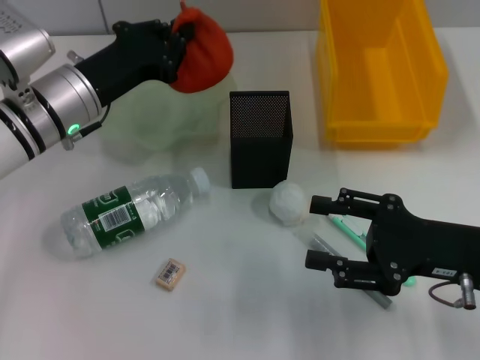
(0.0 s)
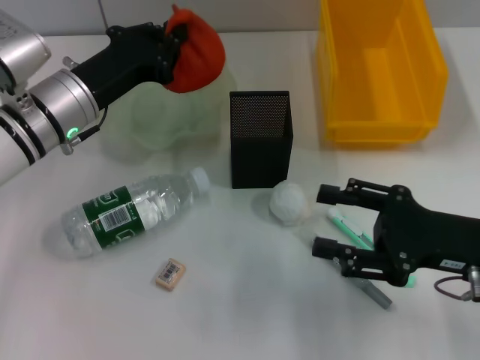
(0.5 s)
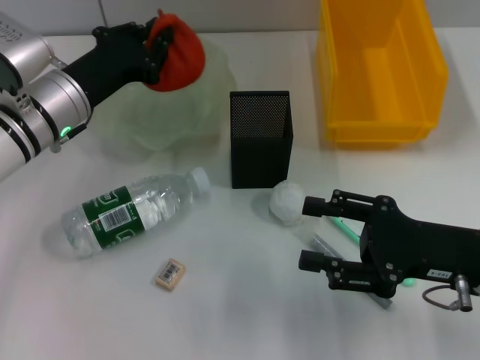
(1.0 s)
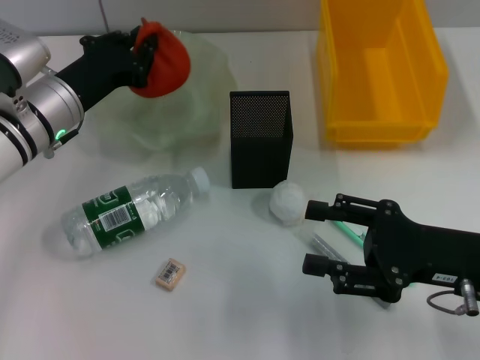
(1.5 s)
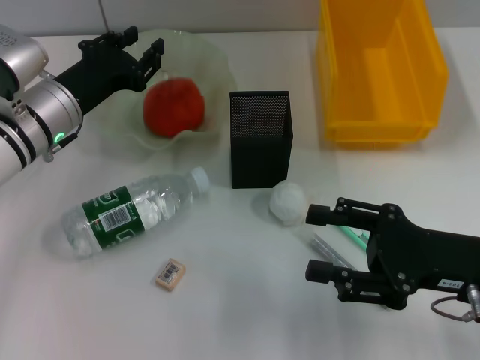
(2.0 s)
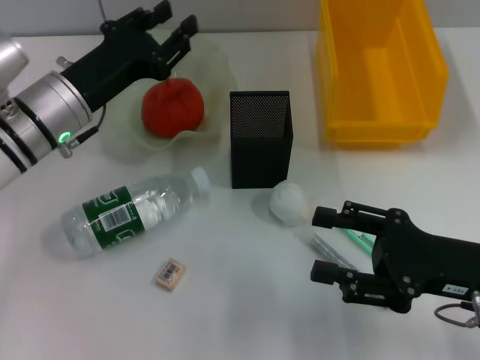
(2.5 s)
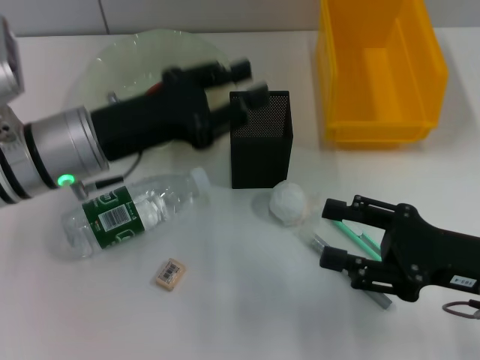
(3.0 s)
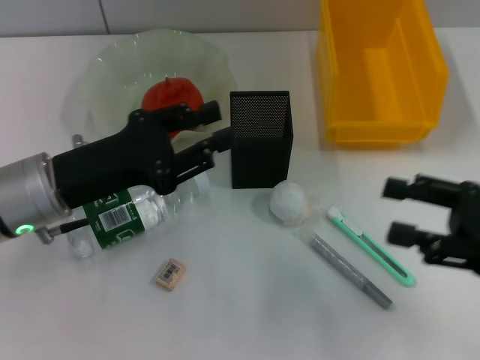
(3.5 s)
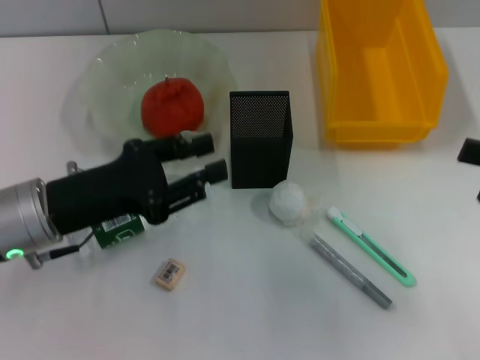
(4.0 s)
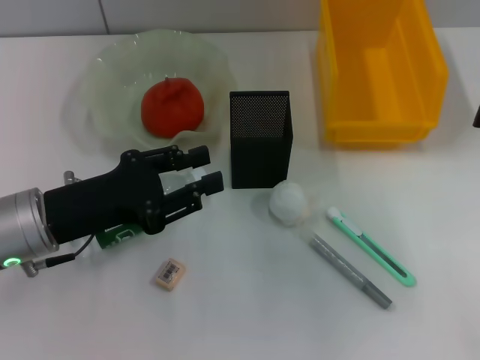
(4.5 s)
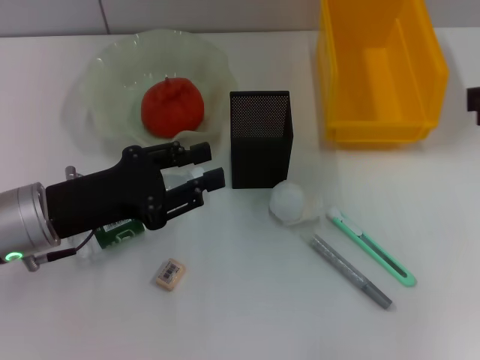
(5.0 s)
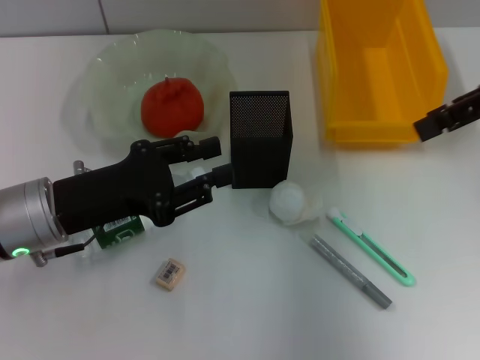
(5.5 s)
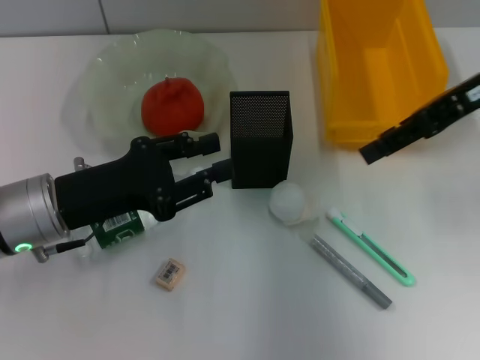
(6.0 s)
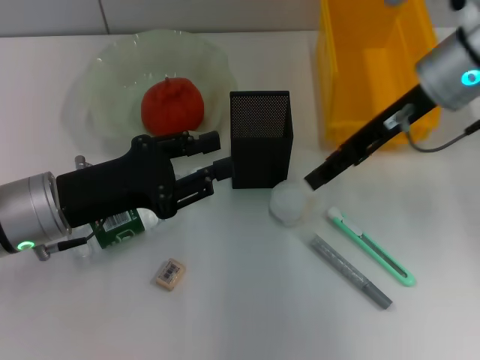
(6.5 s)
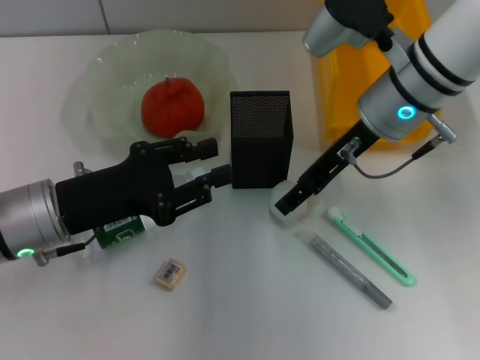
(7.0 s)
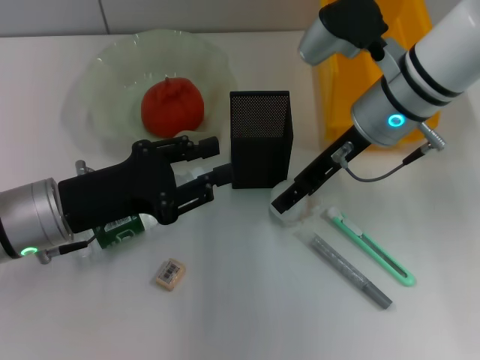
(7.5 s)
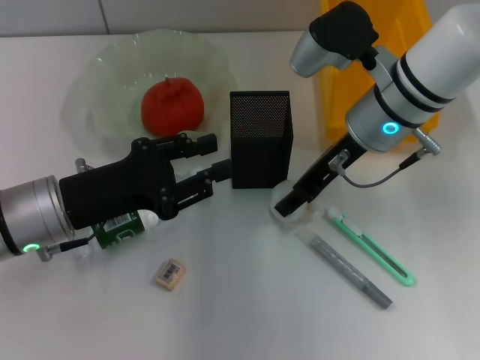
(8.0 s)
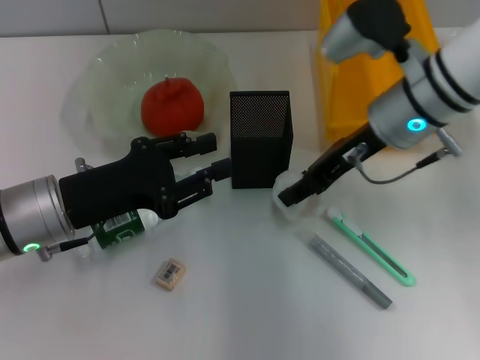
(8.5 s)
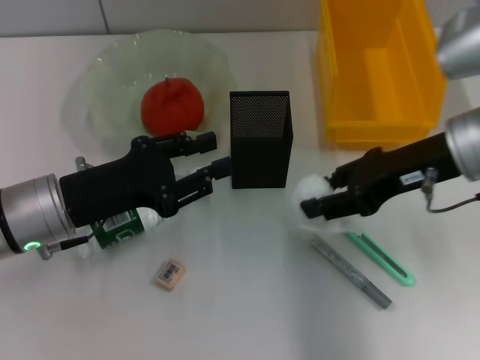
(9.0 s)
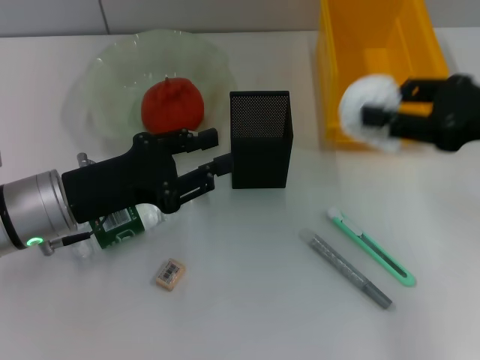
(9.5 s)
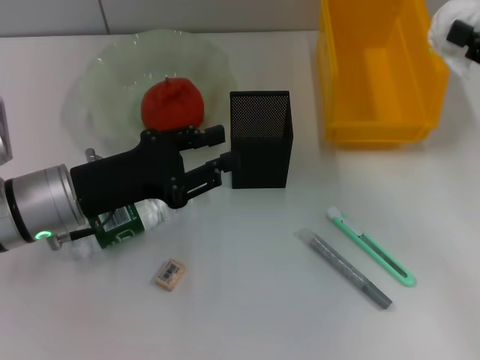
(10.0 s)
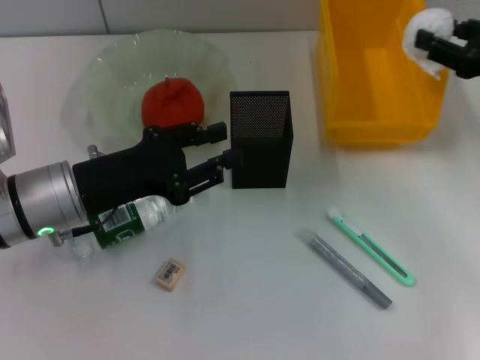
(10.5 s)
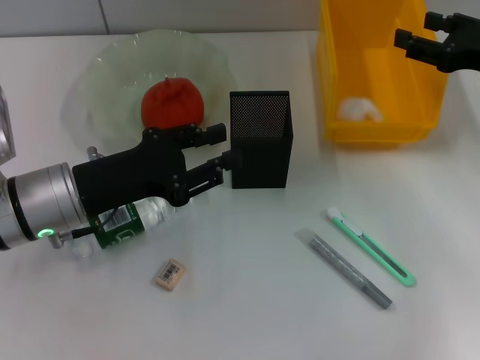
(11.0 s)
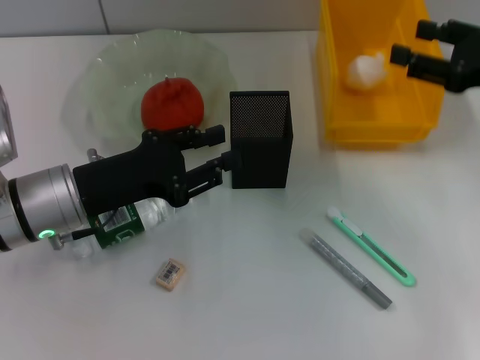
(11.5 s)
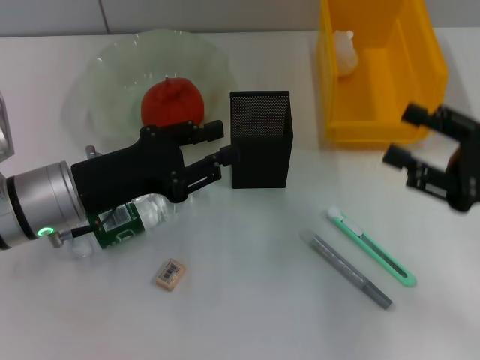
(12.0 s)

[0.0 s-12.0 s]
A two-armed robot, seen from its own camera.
Step, 0.0 to 2.0 s: Place the orange into the fruit bowl with the left hand.
Step, 2.5 to 8.0 s: Grab the paper ball with the right hand.
Step, 8.5 to 11.0 s: Place the paper ball into the trash can with the right hand.
0.0 to 2.0 s: The grippers move only a little.
2.0 to 4.0 s: The left gripper is displaced backward by some 10 cm, while the right gripper moves to the right and upward, about 15 cm.
4.0 to 6.0 s: The right gripper moves forward, to the left and upward, about 20 cm.
6.0 to 8.0 s: The right gripper is displaced to the left and downward by about 15 cm.
8.0 to 10.0 s: The right gripper shifts roughly 20 cm to the right.
10.0 to 12.0 s: The right gripper goes about 10 cm backward and downward.

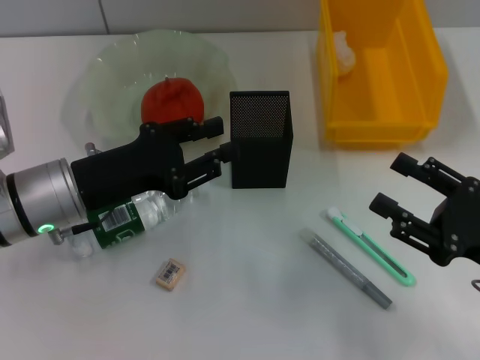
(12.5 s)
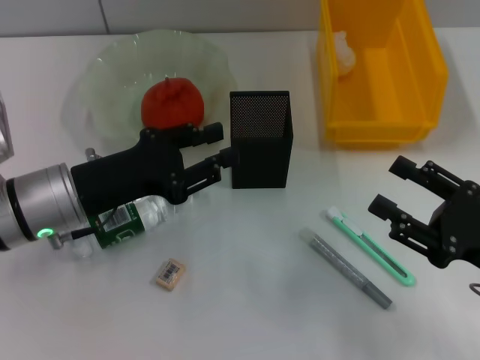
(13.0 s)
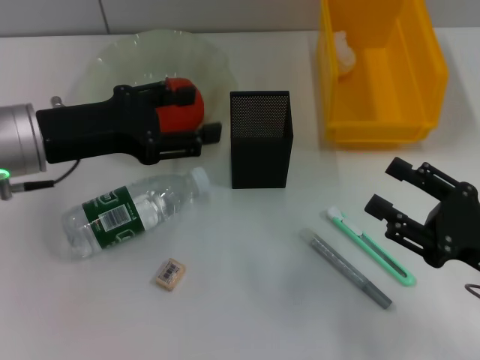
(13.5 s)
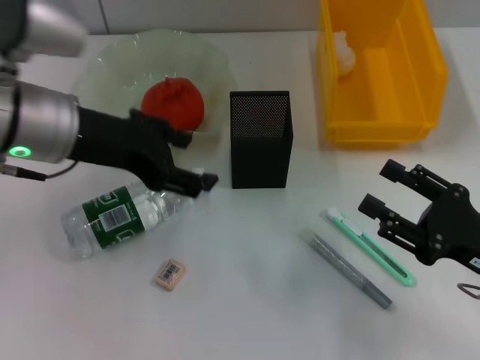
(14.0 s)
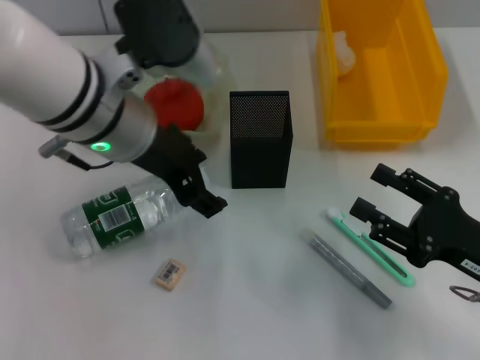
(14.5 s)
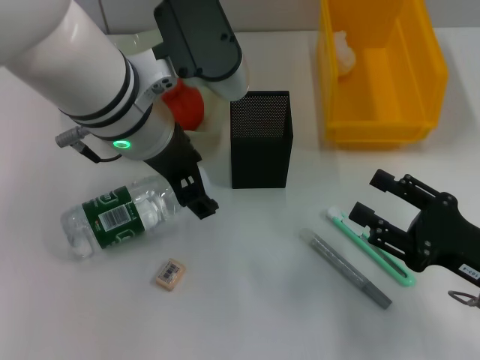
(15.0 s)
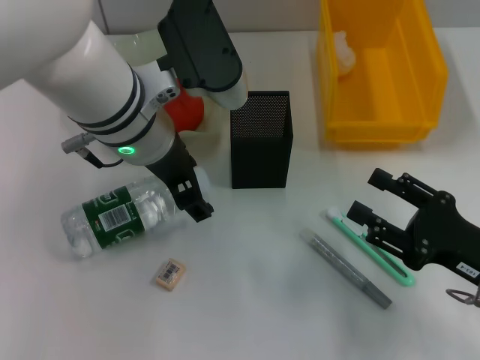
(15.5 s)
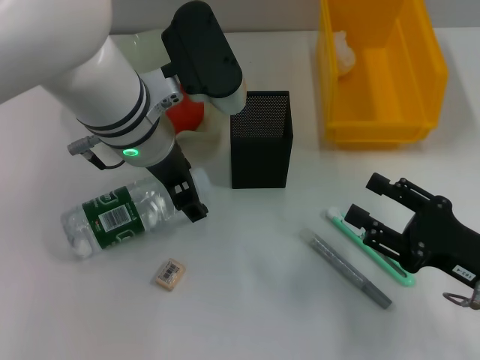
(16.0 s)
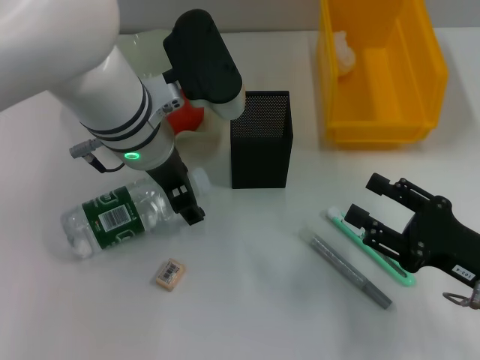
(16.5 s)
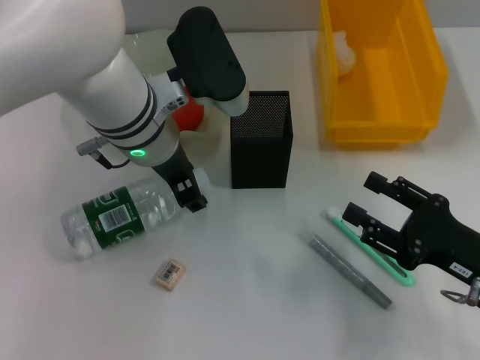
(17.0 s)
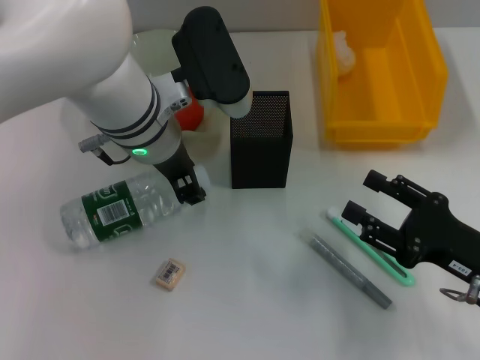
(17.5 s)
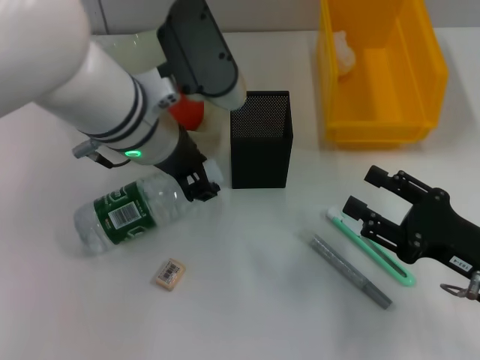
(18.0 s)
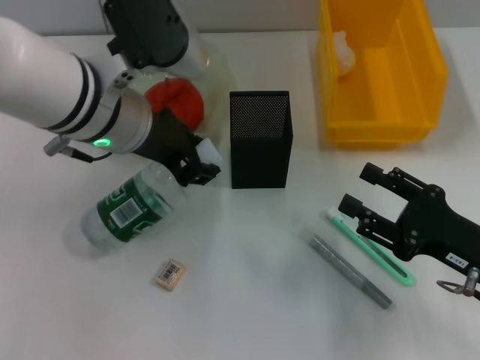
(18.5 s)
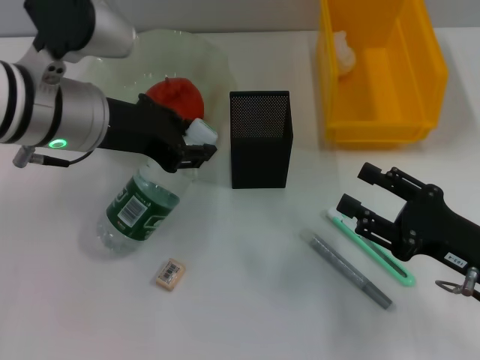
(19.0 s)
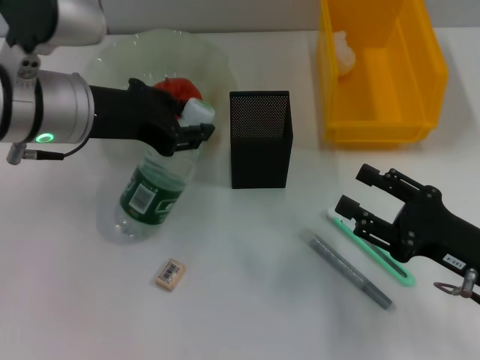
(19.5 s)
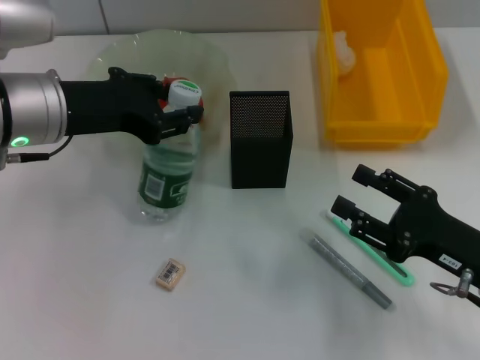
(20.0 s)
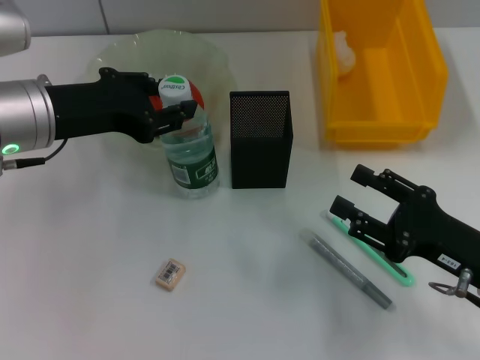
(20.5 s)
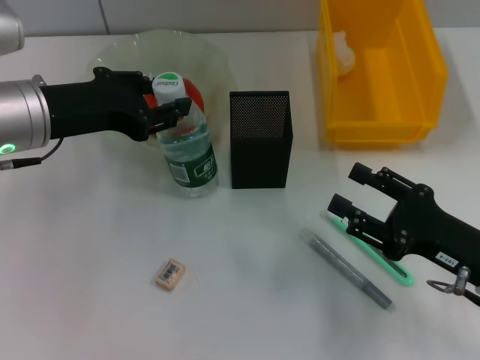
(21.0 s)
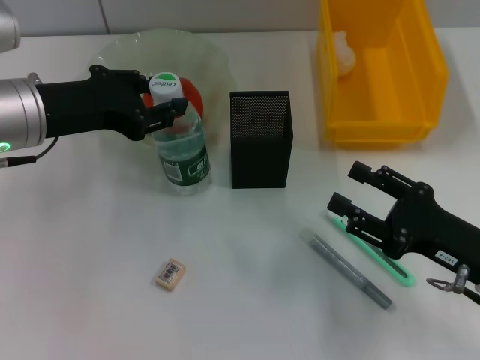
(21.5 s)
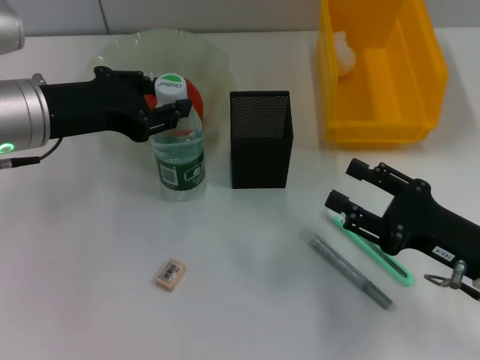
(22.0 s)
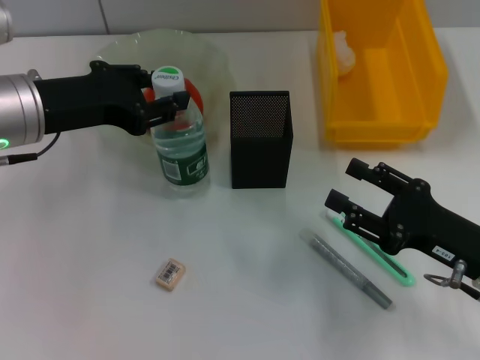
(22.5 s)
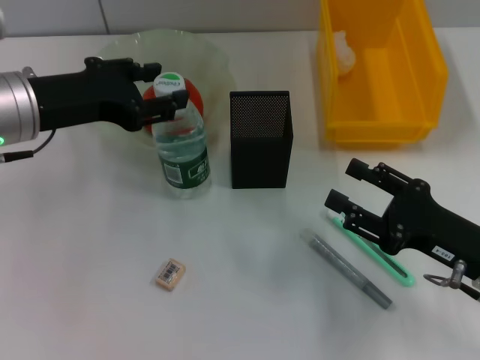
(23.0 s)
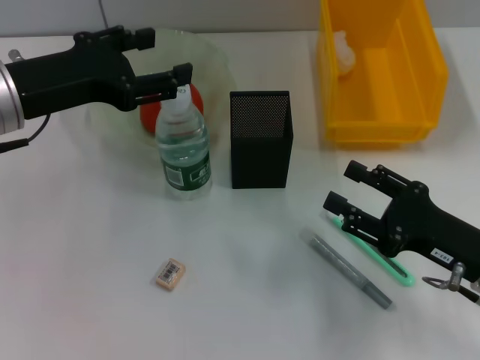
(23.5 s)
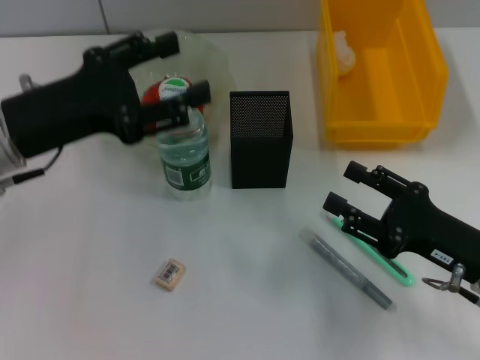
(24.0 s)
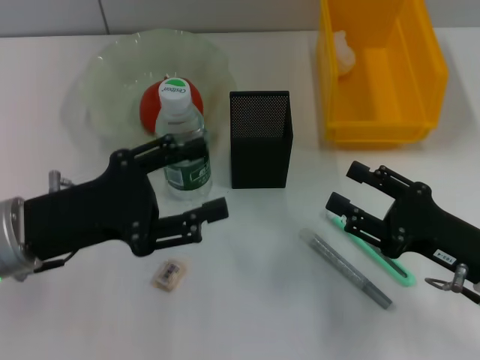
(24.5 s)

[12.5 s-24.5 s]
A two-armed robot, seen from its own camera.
Step, 12.5 to 17.5 s: Grab the water bottle with the left hand.
Step, 18.0 to 23.0 s: Place the water bottle on the table with the left hand.
12.5 to 14.5 s: The left gripper is displaced upward and to the right by some 15 cm, and opens its fingers.
14.5 to 16.5 s: The left gripper shifts by roughly 5 cm.
16.5 to 18.5 s: The left gripper closes.
18.5 to 20.5 s: The left gripper moves to the left, approximately 10 cm.
20.5 to 22.5 s: Both grippers stay about where they are.
22.5 to 24.5 s: The left gripper moves backward and downward, about 10 cm, and opens up.

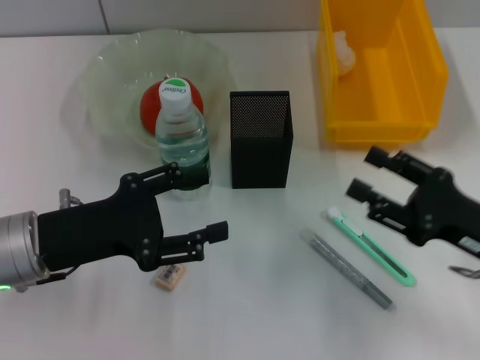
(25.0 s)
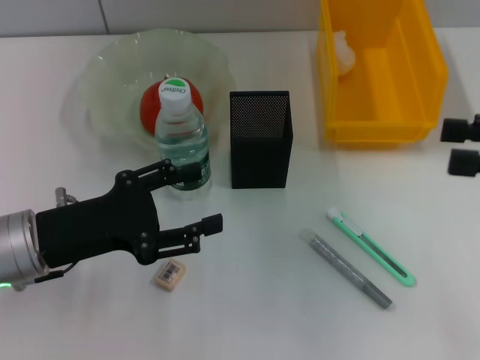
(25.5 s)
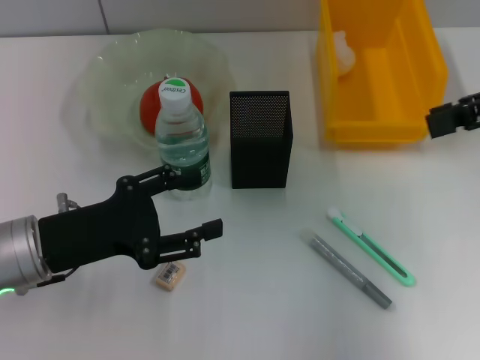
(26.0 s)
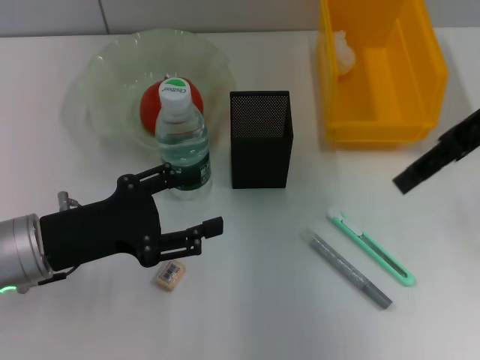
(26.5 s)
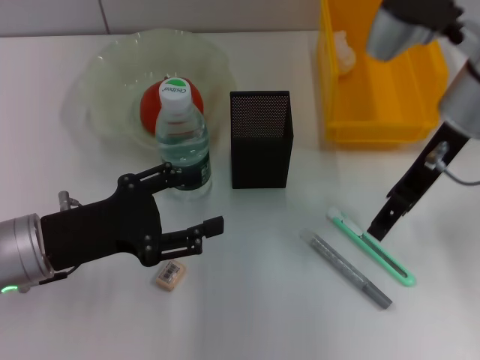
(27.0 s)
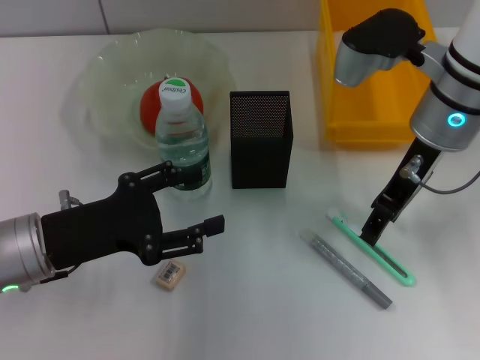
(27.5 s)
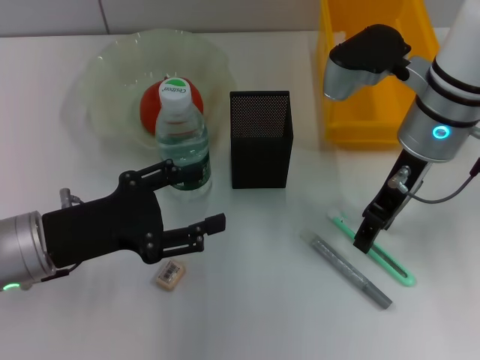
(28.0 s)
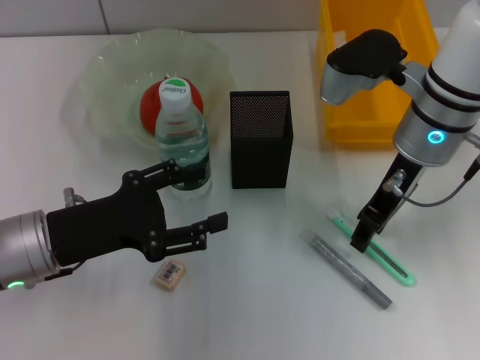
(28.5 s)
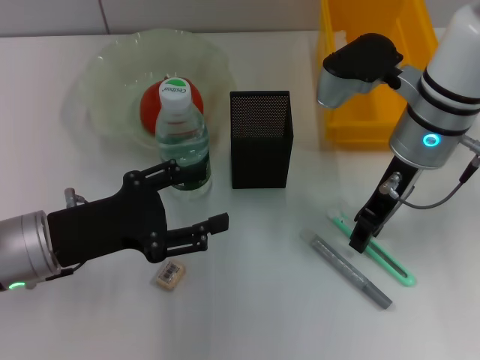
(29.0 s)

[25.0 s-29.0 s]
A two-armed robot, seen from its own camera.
25.0 to 27.0 s: The right gripper moves forward, upward and to the left, roughly 20 cm.
27.0 to 29.0 s: The right gripper changes place by roughly 5 cm.
